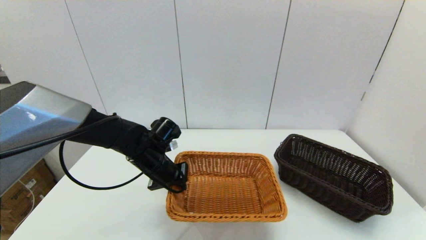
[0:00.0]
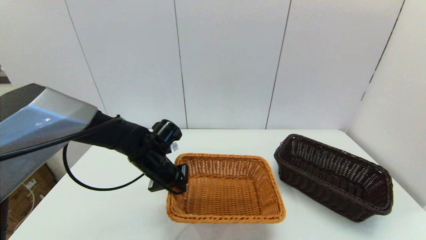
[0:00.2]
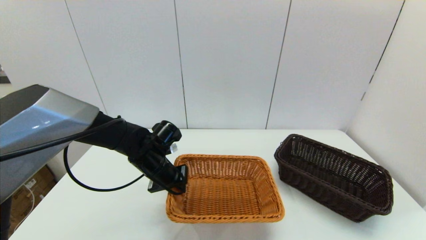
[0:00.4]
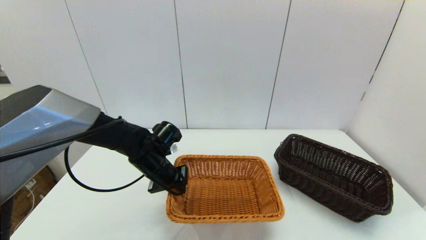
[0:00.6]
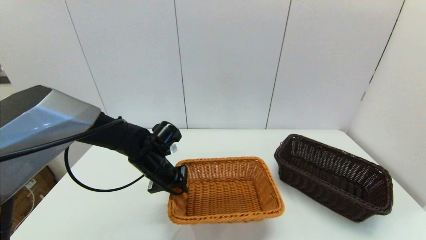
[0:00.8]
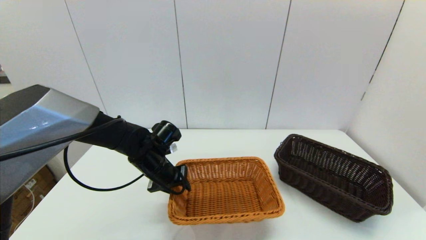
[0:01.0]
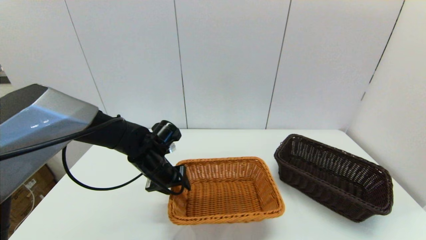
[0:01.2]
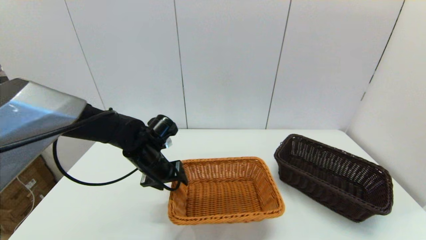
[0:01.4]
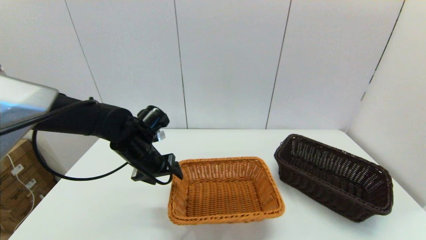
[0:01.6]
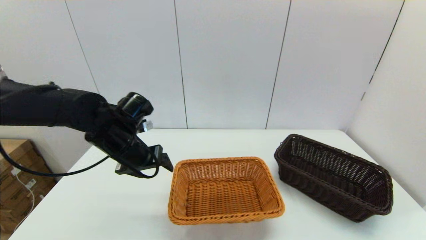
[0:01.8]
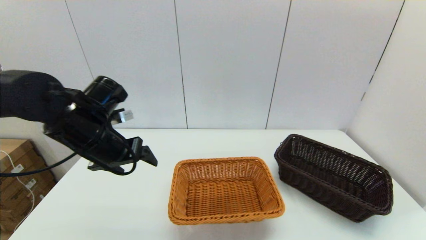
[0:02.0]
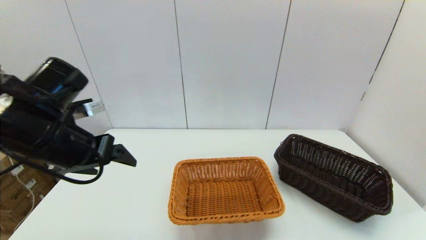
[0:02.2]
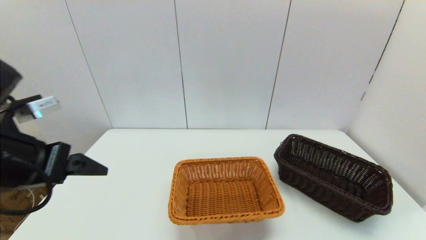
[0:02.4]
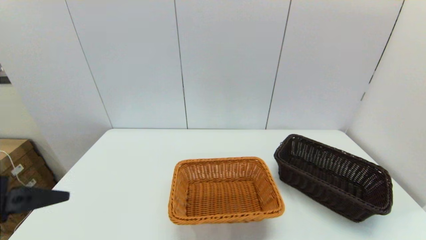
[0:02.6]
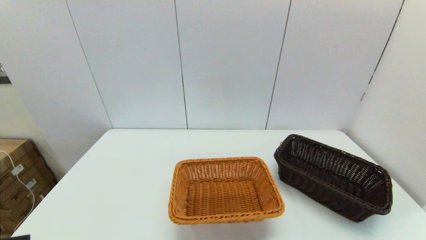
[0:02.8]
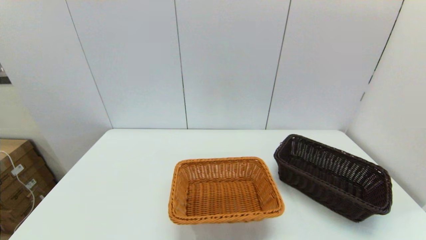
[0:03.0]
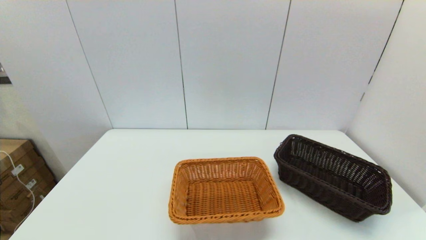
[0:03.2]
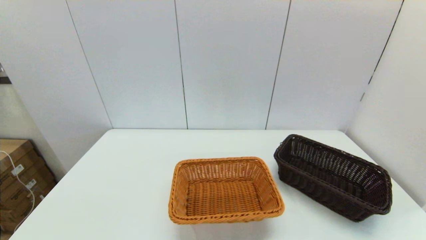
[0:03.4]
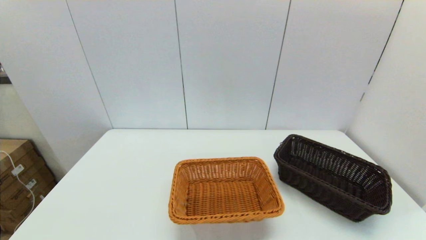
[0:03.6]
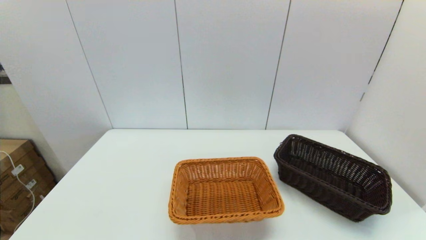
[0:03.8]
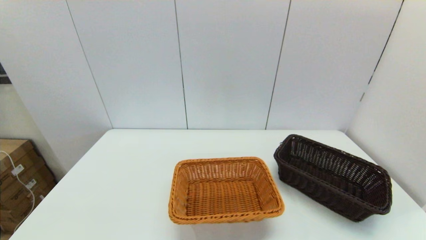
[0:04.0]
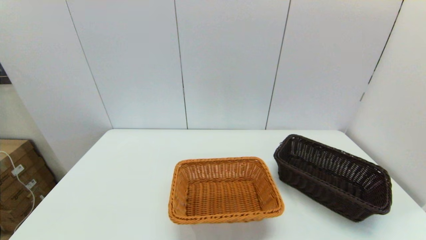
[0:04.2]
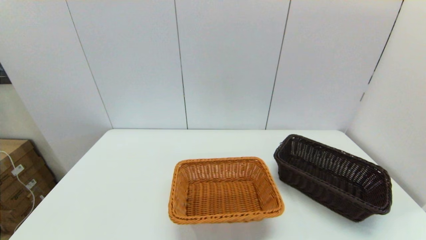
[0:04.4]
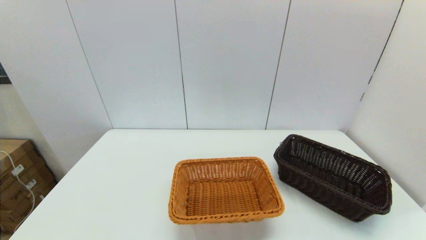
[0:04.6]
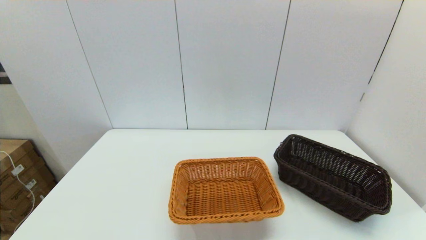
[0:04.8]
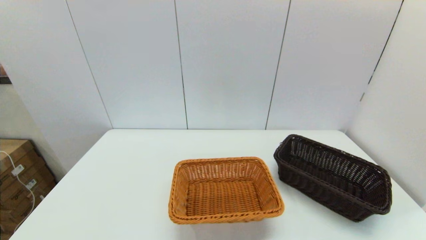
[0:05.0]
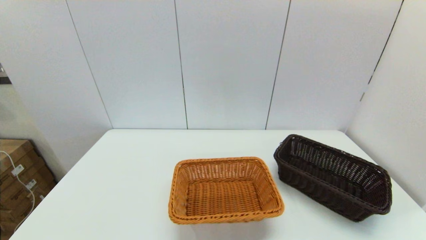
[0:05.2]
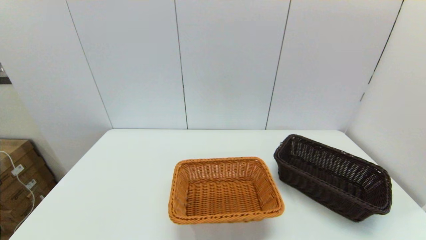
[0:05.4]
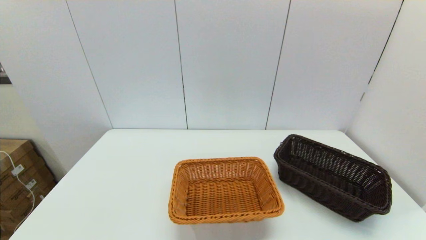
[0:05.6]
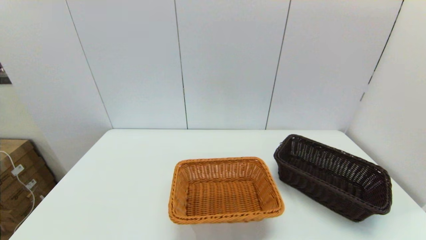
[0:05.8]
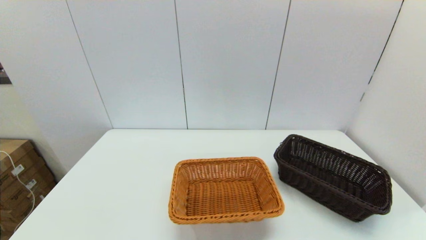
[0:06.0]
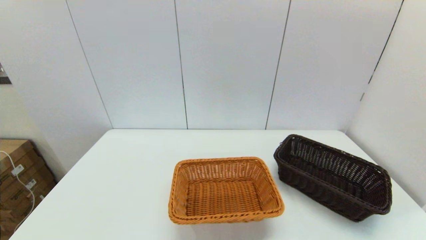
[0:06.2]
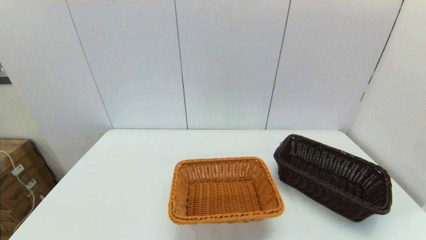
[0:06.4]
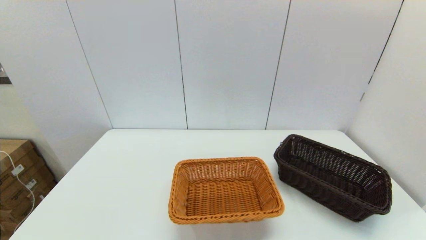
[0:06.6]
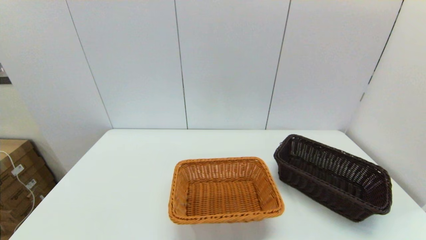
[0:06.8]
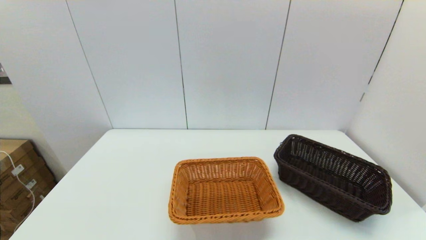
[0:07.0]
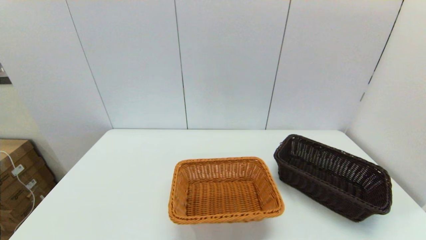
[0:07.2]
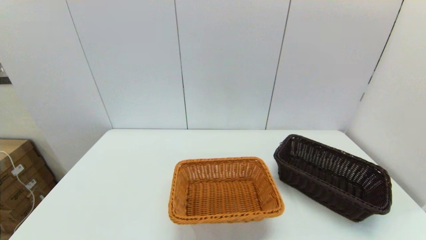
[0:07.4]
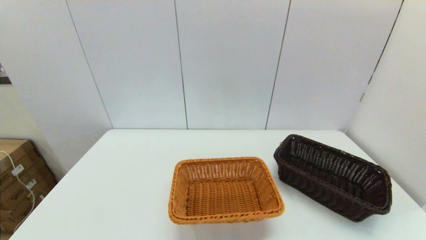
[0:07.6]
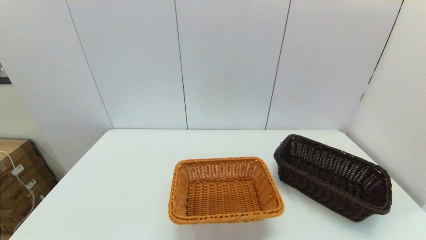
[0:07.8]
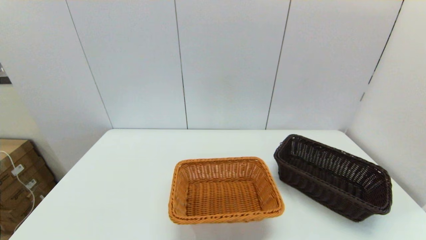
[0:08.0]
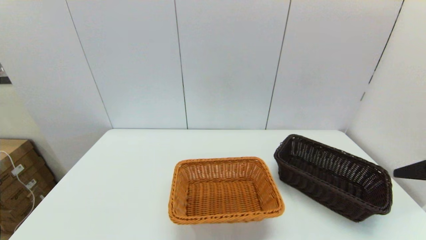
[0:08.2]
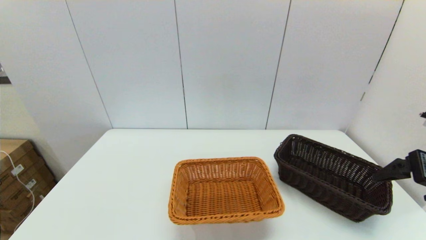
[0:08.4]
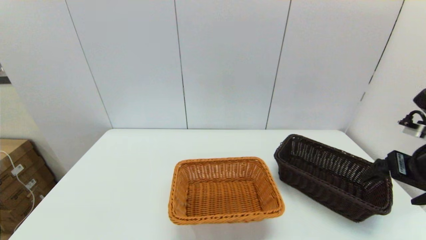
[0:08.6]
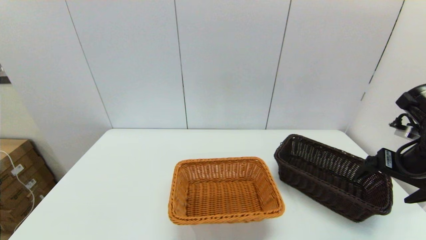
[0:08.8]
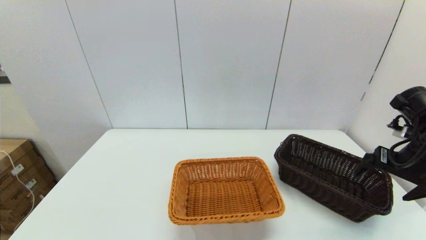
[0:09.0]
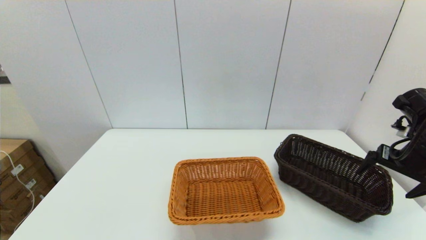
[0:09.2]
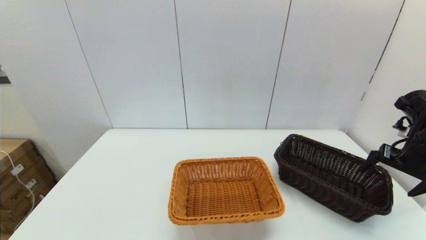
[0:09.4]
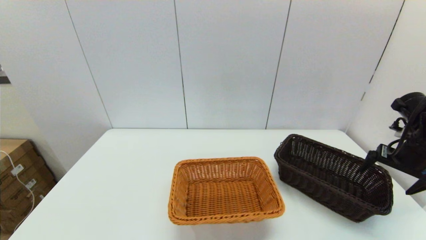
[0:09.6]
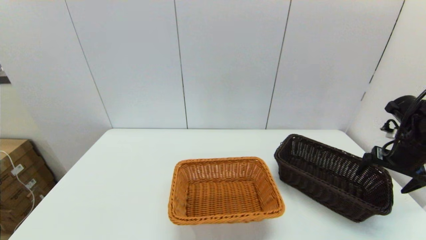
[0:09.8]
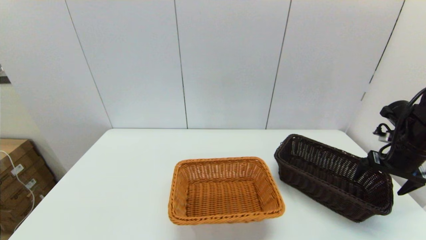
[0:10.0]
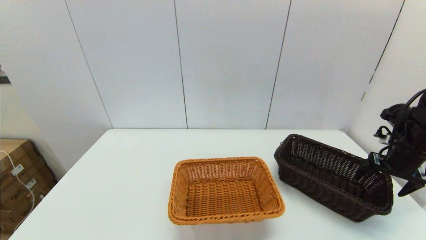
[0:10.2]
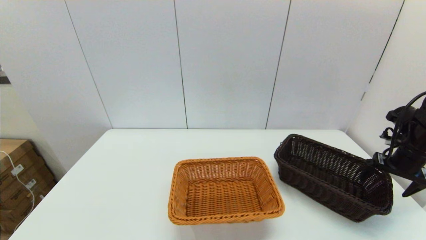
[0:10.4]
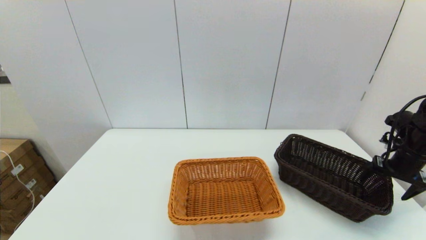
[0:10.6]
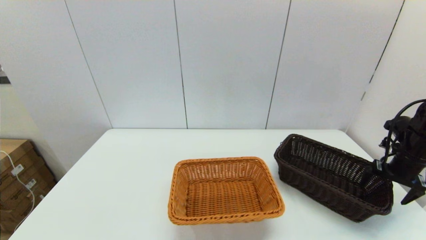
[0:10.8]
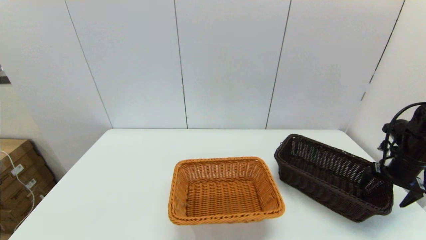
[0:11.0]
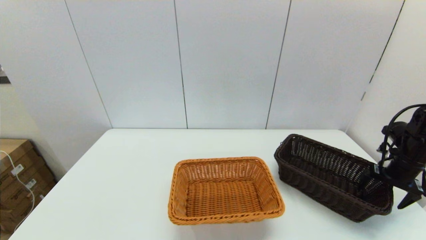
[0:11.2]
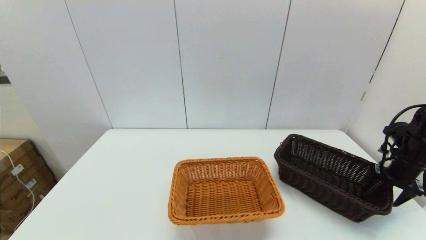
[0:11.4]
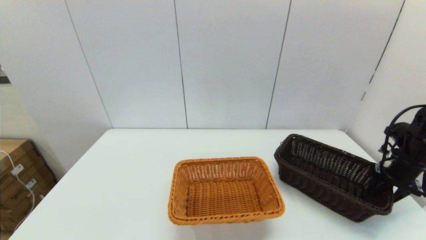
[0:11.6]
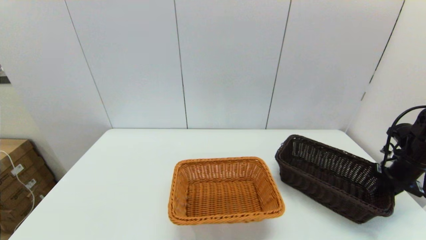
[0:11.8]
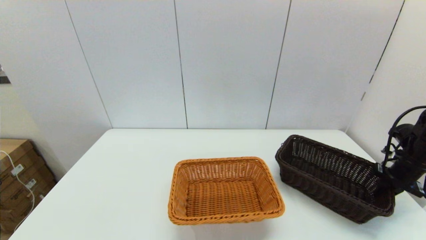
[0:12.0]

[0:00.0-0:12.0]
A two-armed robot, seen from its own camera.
Task of the whole recording: stack a basket on top of another basket.
Step, 2.0 to 11.8 s: Grasp the dark basket with the right gripper.
0.0 to 1.6 s: The left gripper moves approximately 5 cm, and opens.
1.6 to 3.0 s: The left gripper goes roughly 35 cm backward and to the left.
7.6 to 9.0 s: The right gripper is displaced forward by roughly 25 cm.
9.0 to 10.4 s: The right gripper travels to the right, forward and downward by approximately 15 cm.
10.4 to 12.0 s: The right gripper changes place by approximately 5 cm, and closes up.

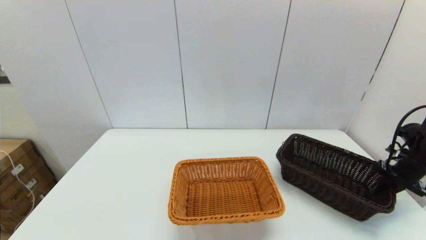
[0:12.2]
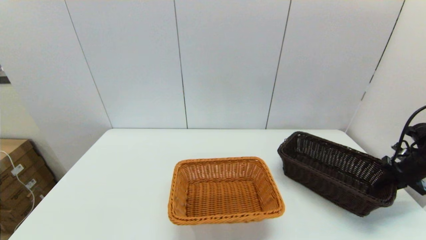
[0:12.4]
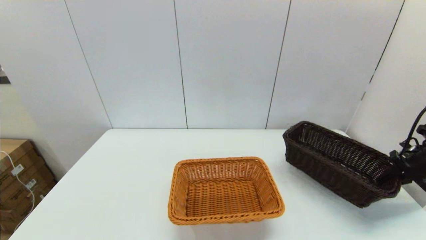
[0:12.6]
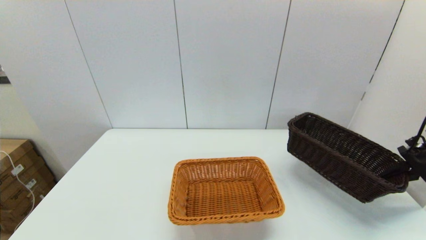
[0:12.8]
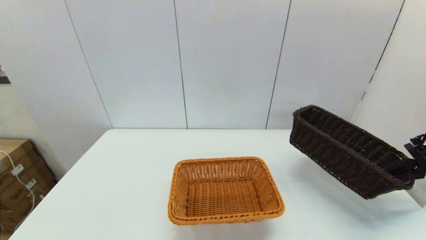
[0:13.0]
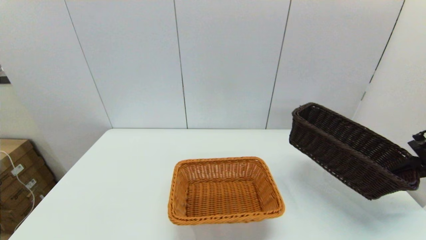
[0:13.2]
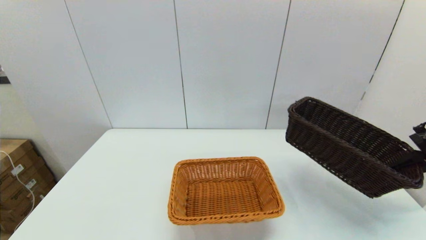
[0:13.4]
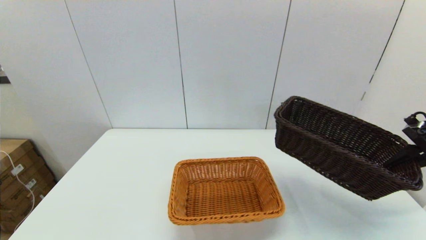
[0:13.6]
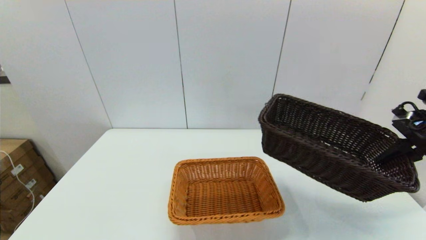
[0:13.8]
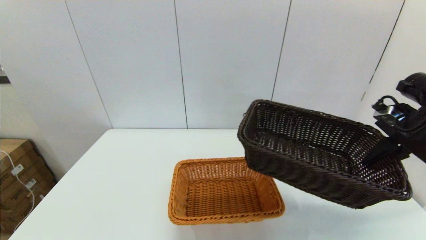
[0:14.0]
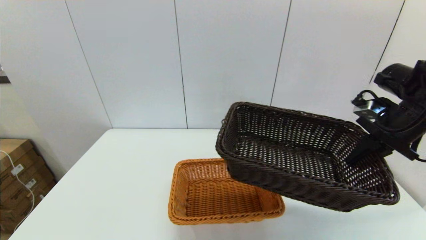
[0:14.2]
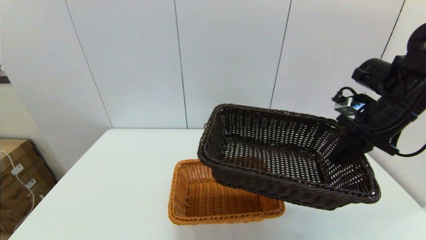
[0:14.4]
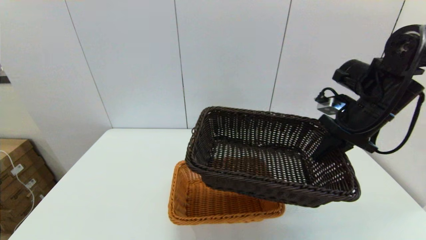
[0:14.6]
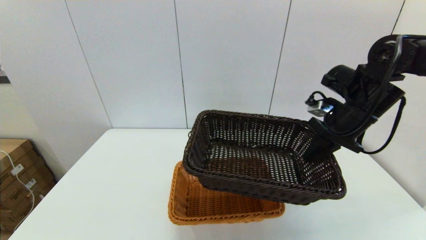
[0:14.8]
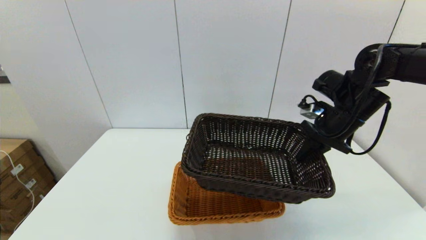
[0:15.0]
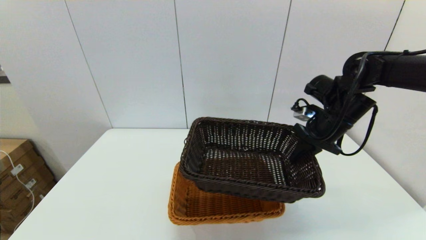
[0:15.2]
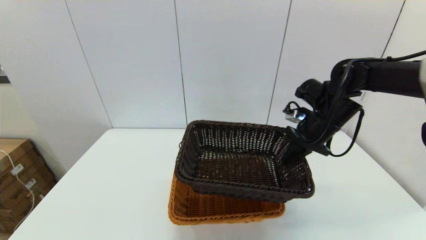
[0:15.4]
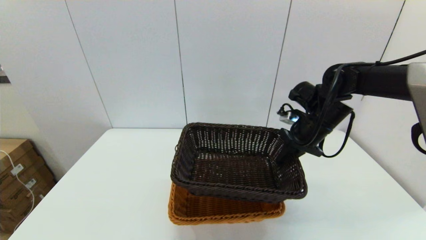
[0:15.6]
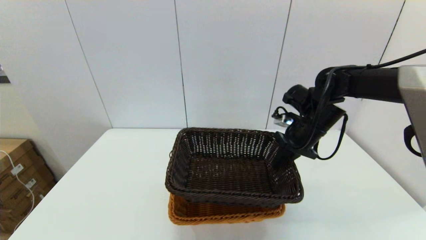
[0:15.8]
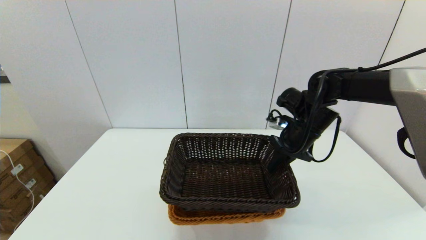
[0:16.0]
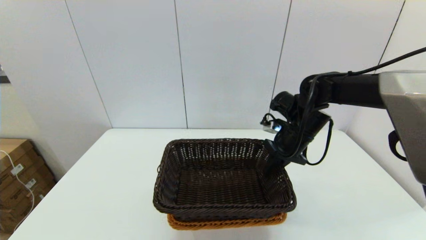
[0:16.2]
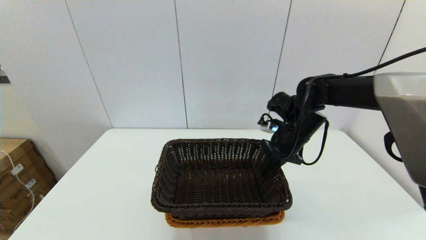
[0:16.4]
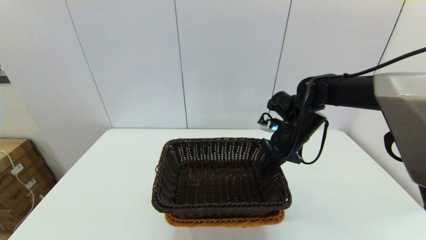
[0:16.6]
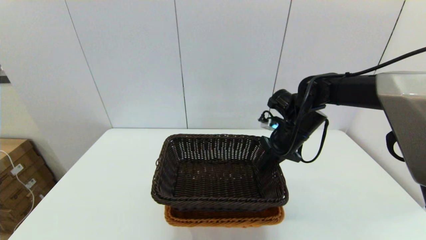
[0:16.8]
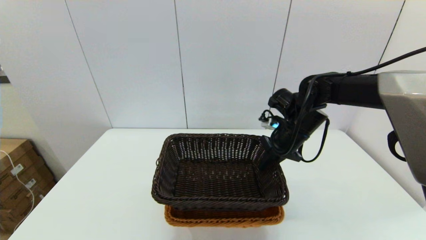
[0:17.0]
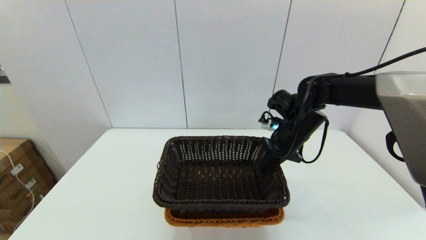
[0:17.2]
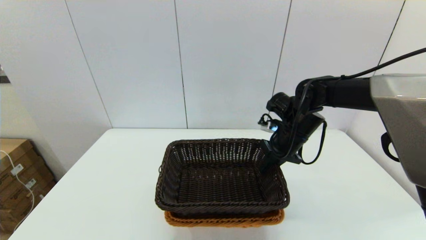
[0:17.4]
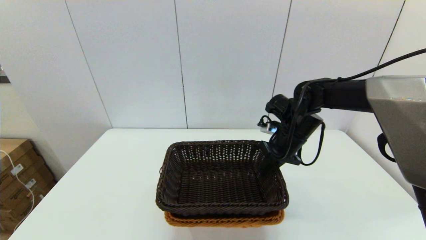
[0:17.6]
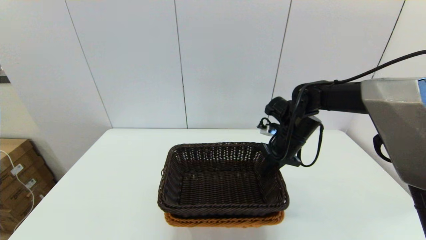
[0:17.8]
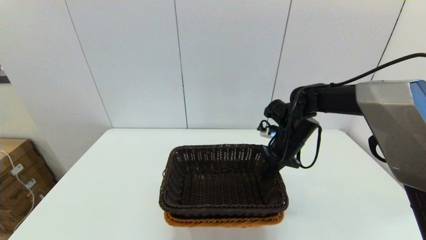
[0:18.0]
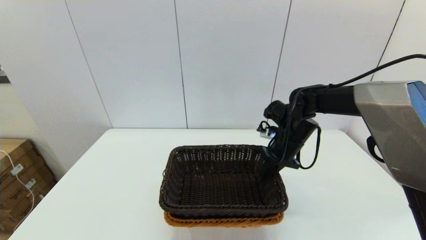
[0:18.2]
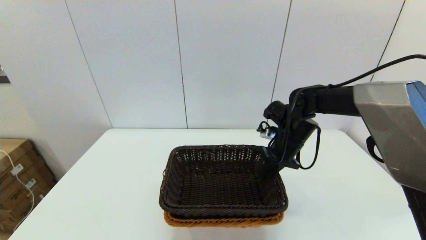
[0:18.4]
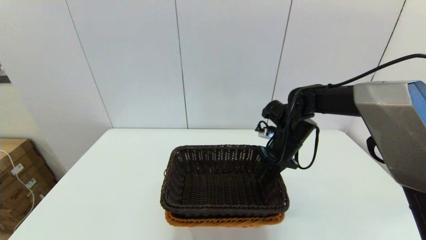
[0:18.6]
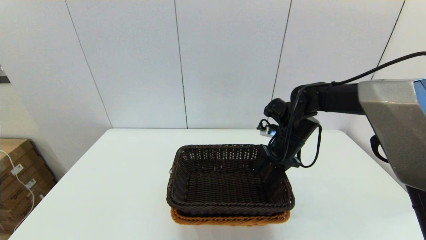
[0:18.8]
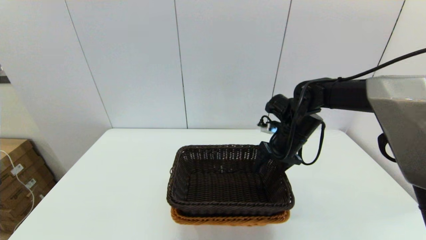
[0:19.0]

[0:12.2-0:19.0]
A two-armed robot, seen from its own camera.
Task of the whole recording: stack a basket on top of another basket.
12.2 to 13.6 s: The right gripper is displaced upward by roughly 10 cm.
13.6 to 15.0 s: The right gripper moves to the left, roughly 20 cm.
15.0 to 16.2 s: The right gripper travels to the left and downward by some 10 cm.
16.2 to 17.6 s: The grippers move only a little.
17.6 to 19.0 s: The right gripper opens its fingers.
